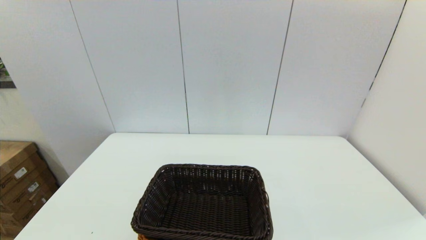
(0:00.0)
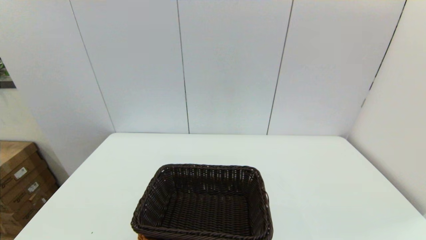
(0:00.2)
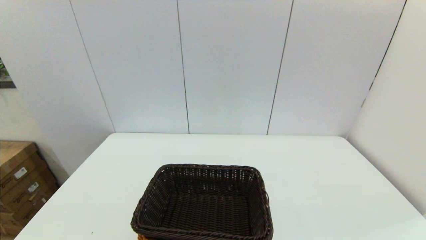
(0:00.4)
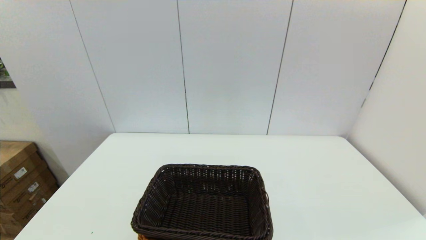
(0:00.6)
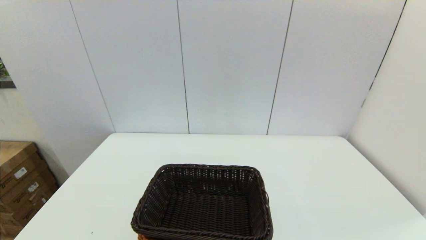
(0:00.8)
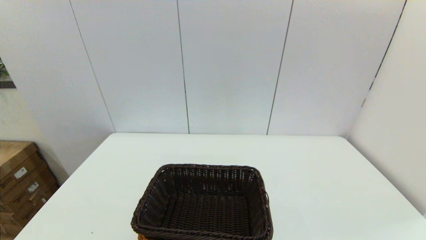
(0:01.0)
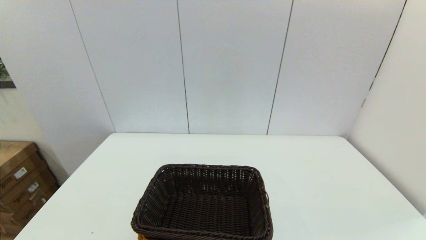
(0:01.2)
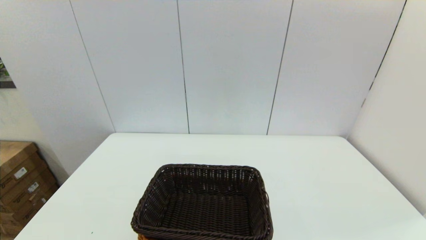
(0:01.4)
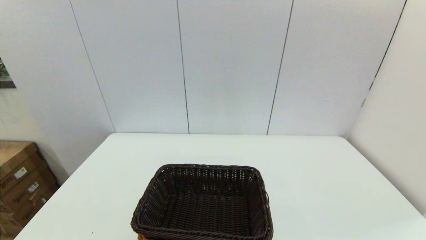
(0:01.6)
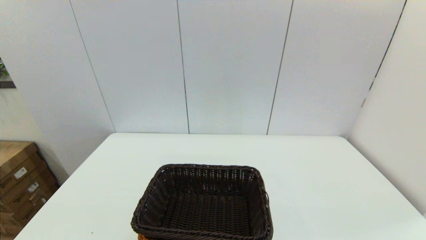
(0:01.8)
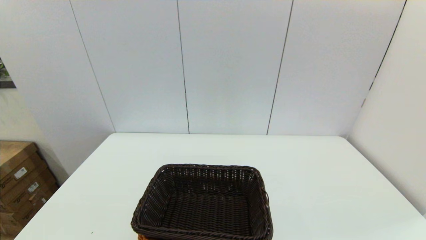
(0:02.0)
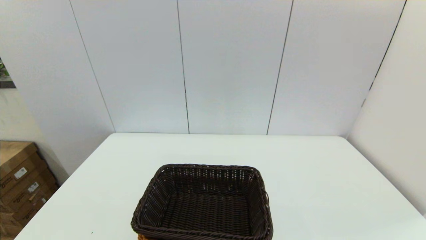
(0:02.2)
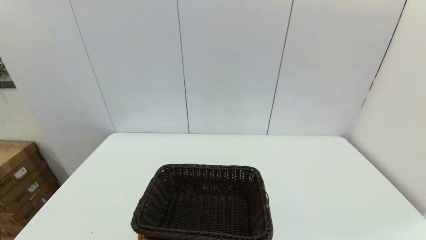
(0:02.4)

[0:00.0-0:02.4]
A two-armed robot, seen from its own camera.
Task of the whole recording: stack a basket on top of another basket.
0:00.0 to 0:02.4: The two grippers keep their place.
